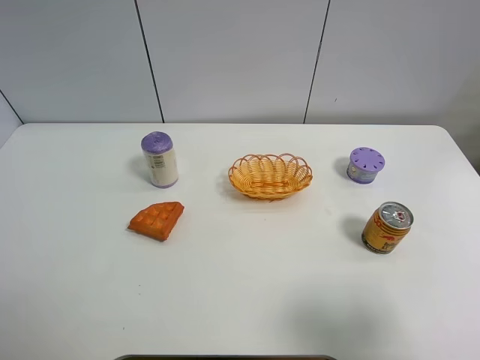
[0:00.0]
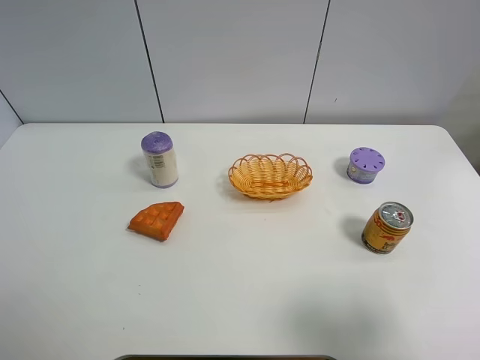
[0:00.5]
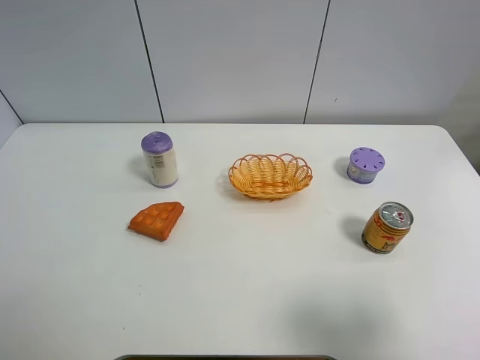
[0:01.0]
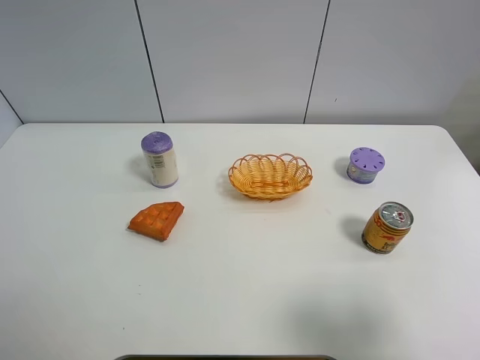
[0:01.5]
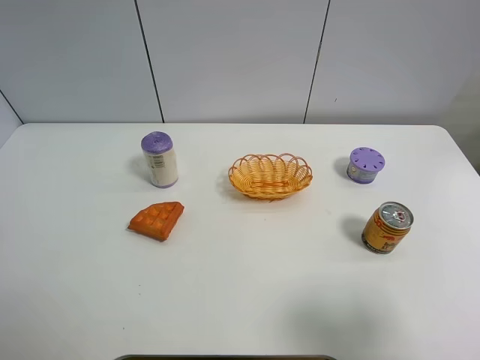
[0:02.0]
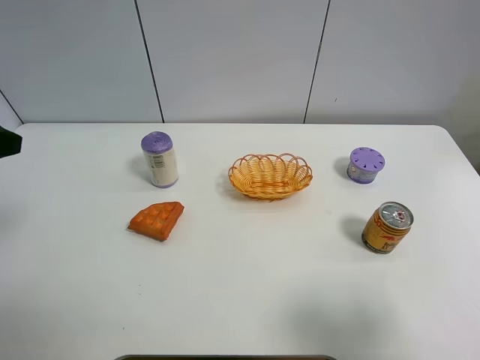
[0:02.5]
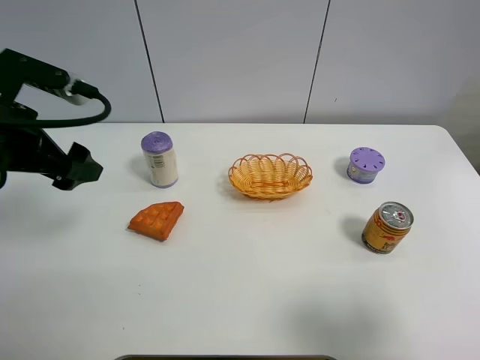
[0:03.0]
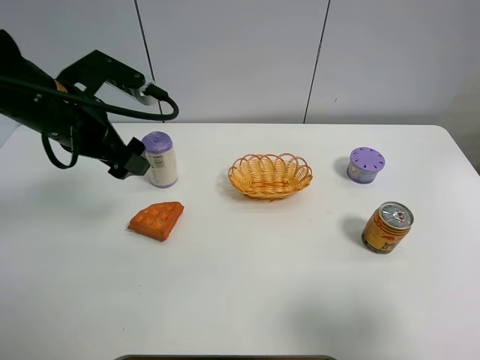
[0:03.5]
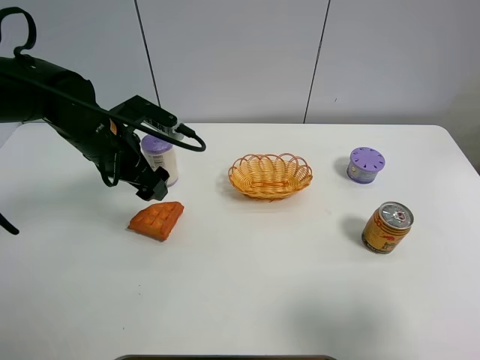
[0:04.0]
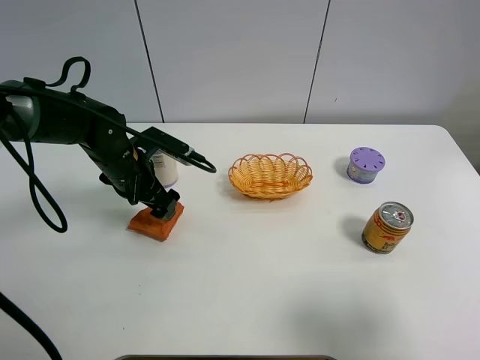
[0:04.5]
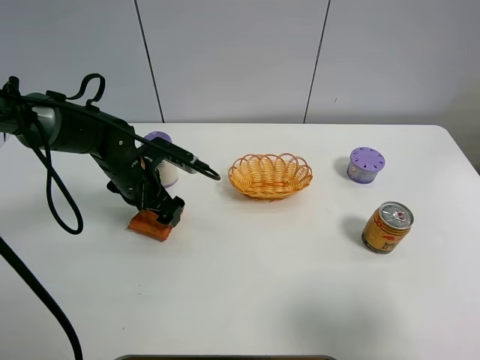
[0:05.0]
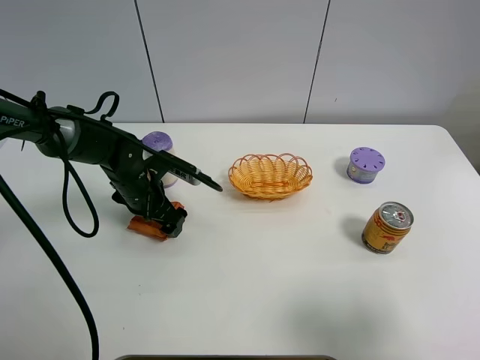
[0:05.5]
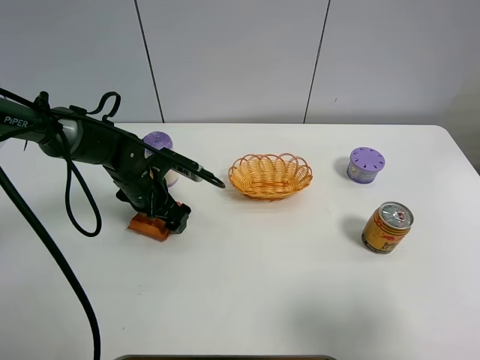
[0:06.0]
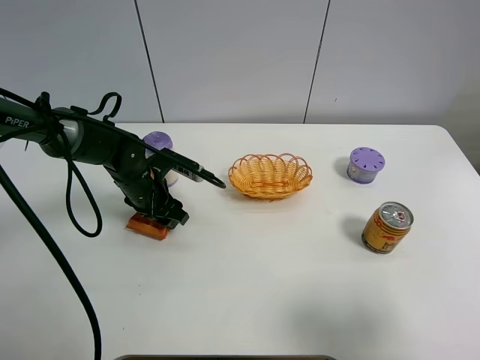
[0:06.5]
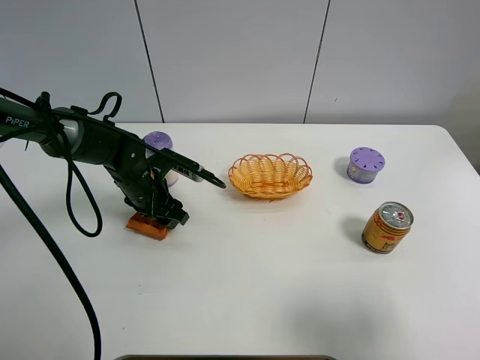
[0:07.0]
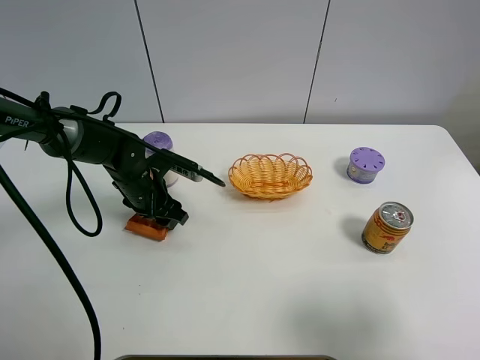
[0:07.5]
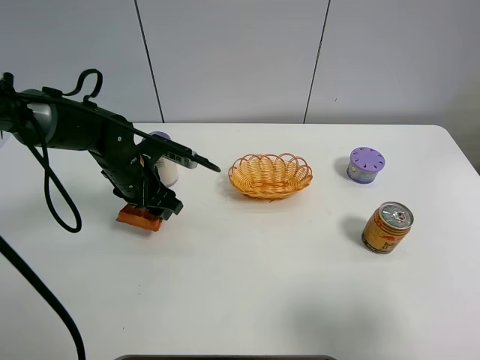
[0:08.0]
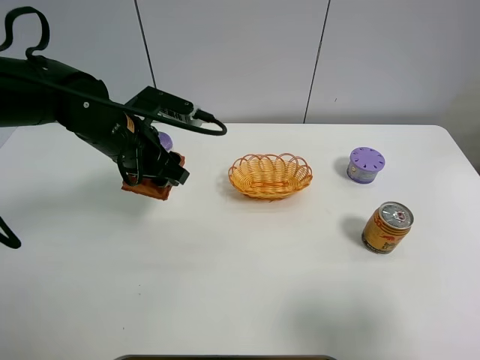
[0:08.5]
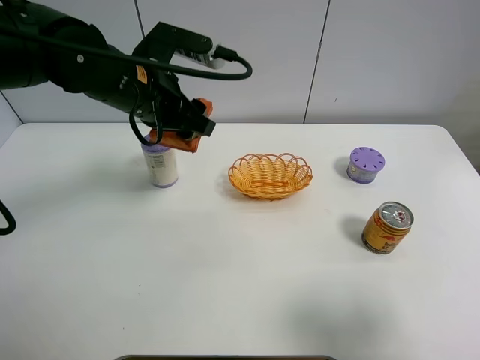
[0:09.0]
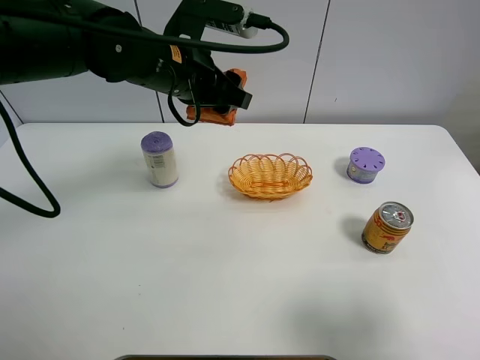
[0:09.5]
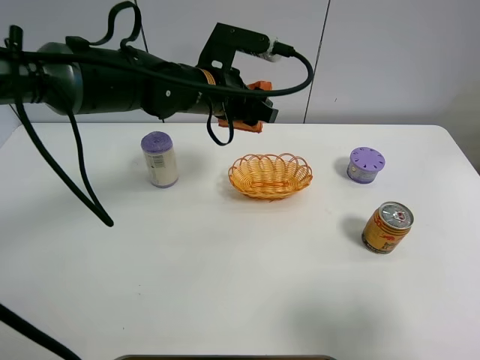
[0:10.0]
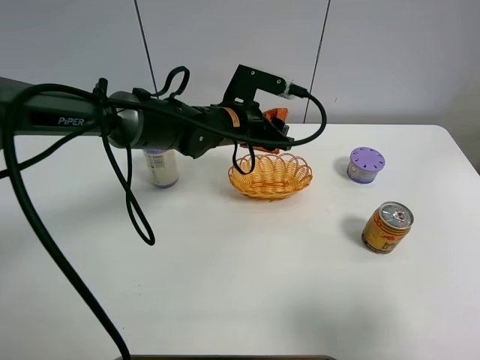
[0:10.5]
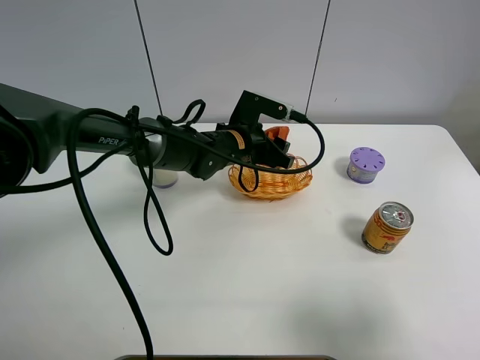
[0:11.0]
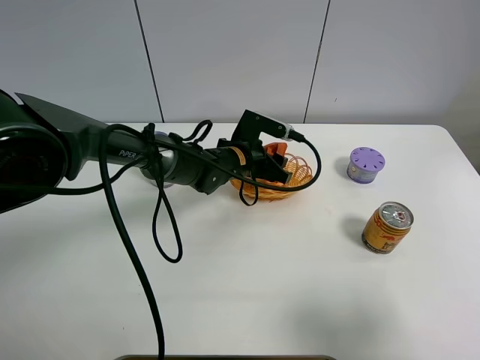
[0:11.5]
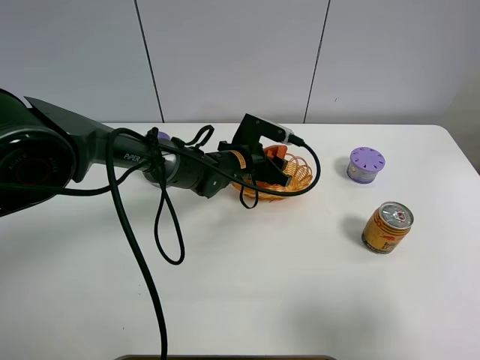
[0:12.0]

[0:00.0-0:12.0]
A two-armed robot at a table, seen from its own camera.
Task of the whole recording: Put the bakery in the basket.
0:02.0 to 0:04.0: The left gripper shifts some 30 cm forward, to the right and downward.
0:04.0 to 0:06.0: The left gripper is displaced downward by approximately 10 cm.
0:06.0 to 0:08.0: The left gripper closes up.
0:08.0 to 0:10.0: The left gripper goes some 15 cm to the right and upward.
0:10.0 to 0:12.0: The left gripper shifts approximately 15 cm downward.

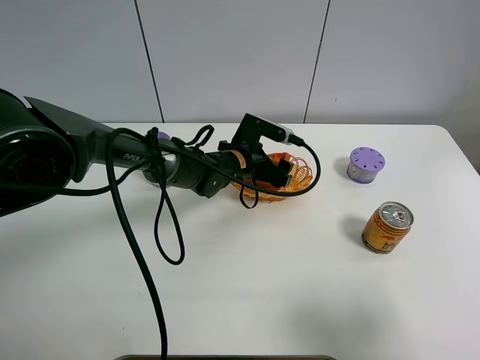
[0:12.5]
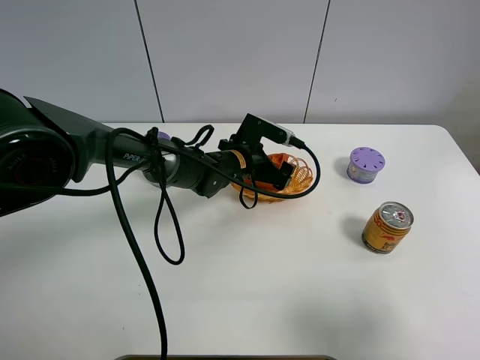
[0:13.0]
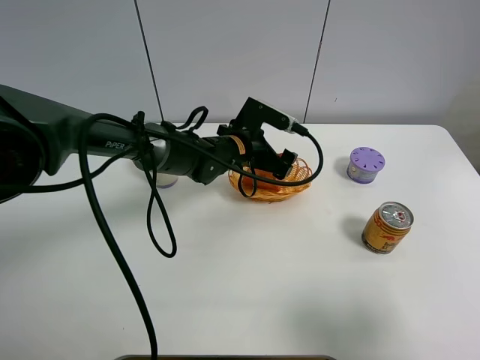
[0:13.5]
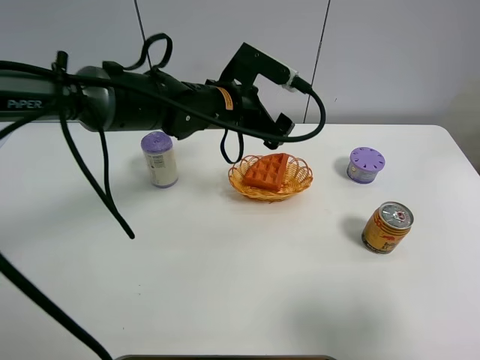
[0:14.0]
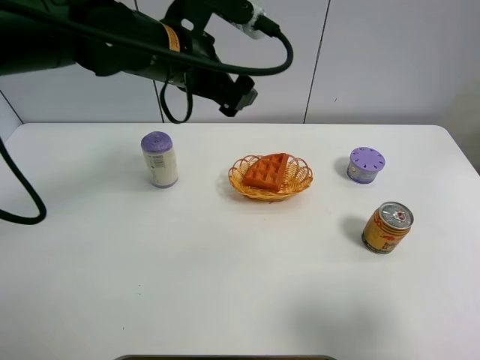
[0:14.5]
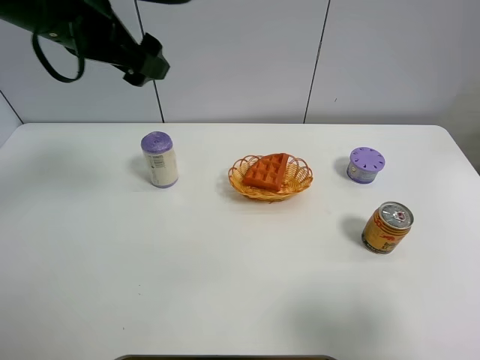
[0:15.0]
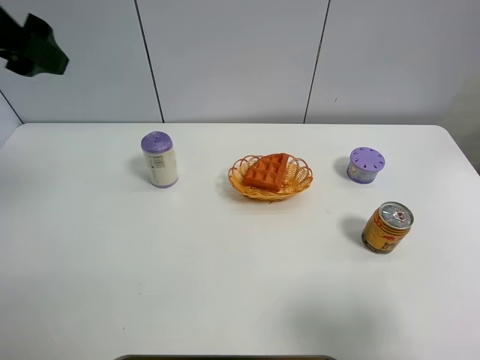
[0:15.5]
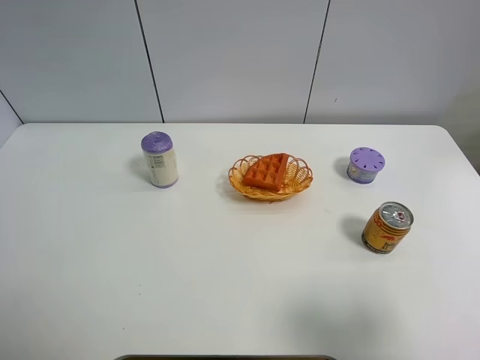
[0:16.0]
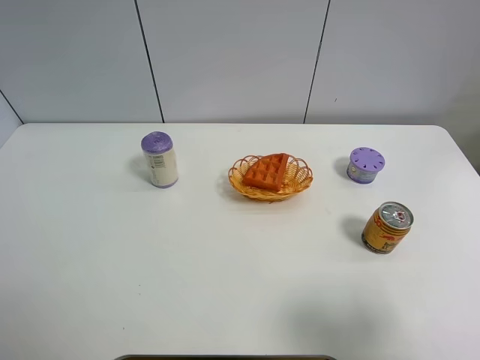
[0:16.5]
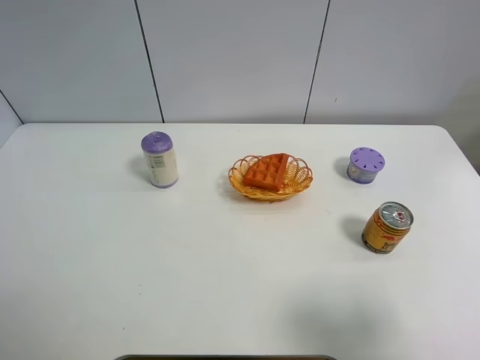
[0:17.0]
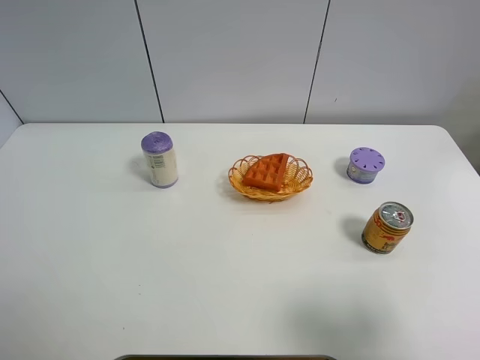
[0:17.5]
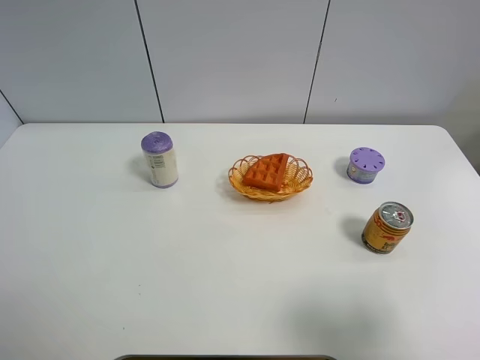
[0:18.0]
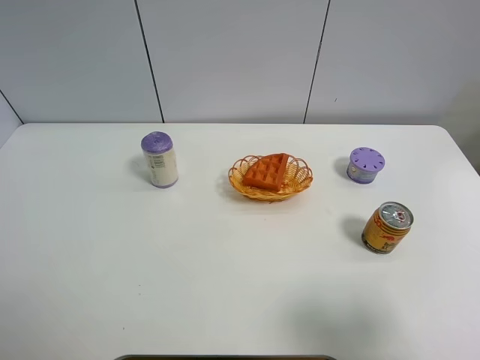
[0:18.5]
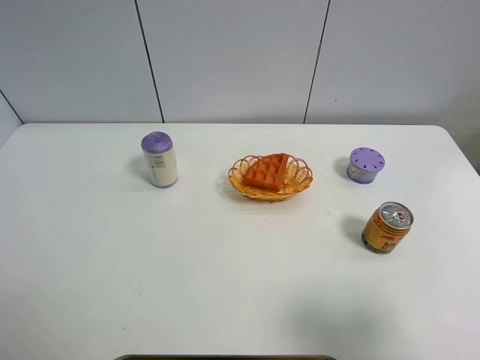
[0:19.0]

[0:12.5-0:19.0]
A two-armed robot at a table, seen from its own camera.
Task of the whole recording: Put the bakery in the basket.
0:12.5 to 0:14.5: The left gripper heads upward, covering about 25 cm.
0:14.5 to 0:17.0: The left gripper travels backward and to the left by about 40 cm.
